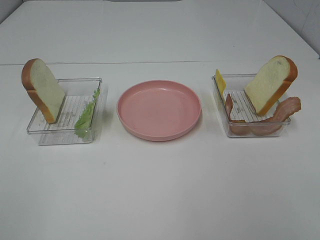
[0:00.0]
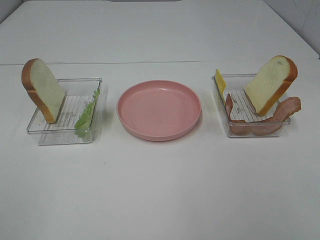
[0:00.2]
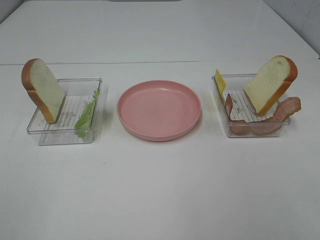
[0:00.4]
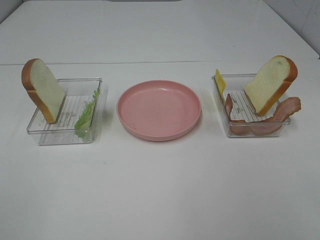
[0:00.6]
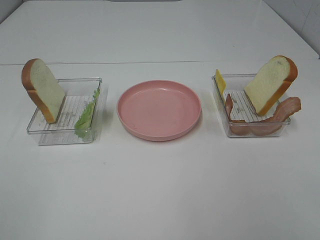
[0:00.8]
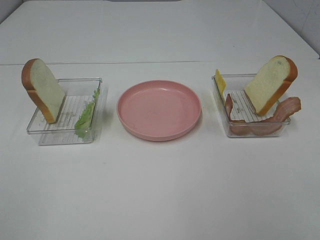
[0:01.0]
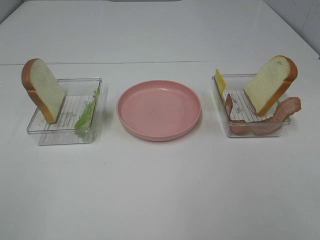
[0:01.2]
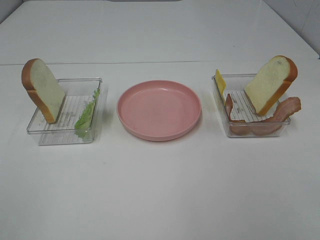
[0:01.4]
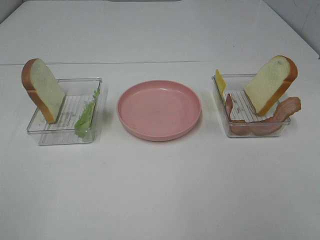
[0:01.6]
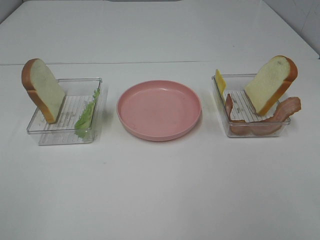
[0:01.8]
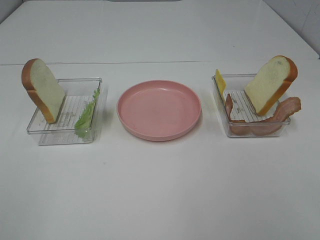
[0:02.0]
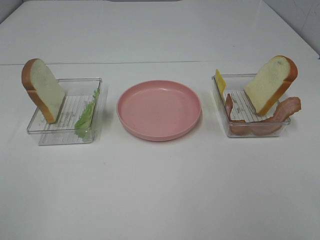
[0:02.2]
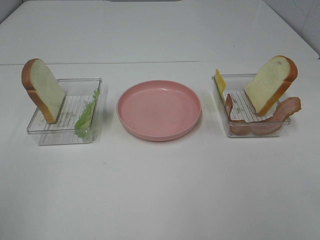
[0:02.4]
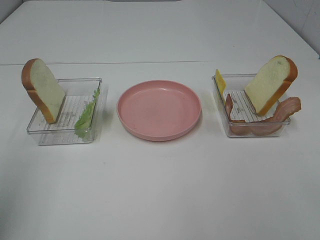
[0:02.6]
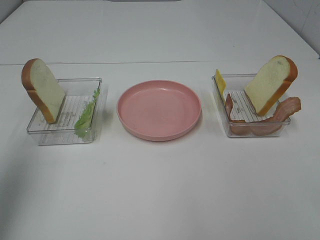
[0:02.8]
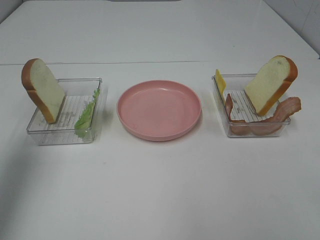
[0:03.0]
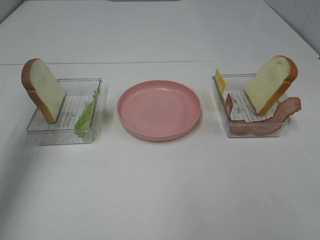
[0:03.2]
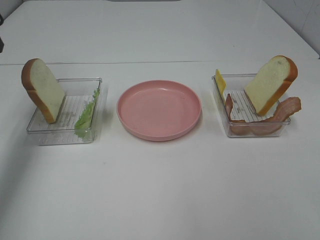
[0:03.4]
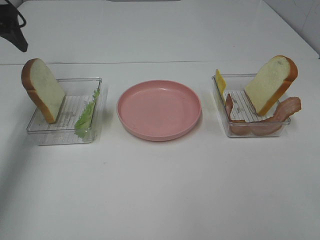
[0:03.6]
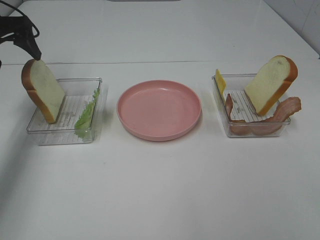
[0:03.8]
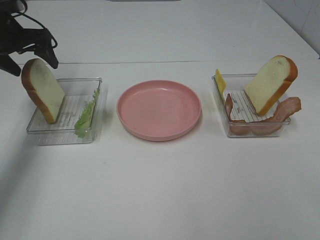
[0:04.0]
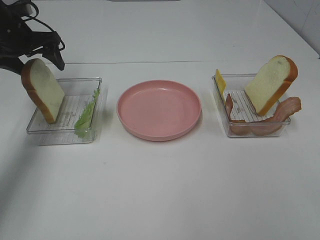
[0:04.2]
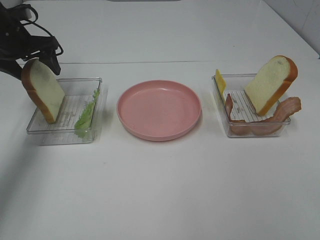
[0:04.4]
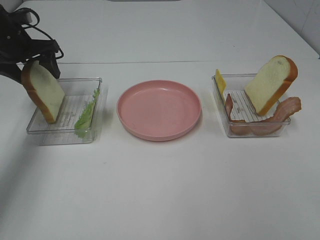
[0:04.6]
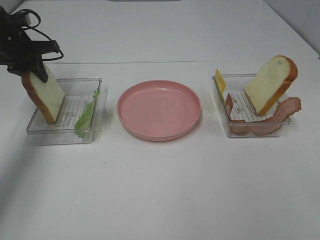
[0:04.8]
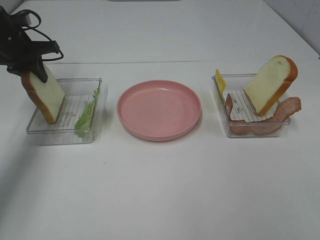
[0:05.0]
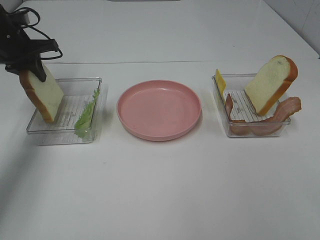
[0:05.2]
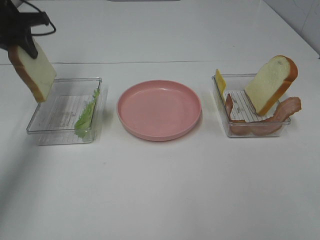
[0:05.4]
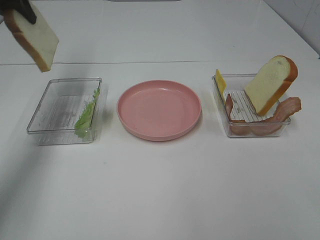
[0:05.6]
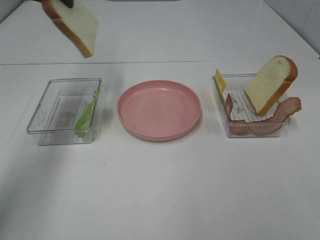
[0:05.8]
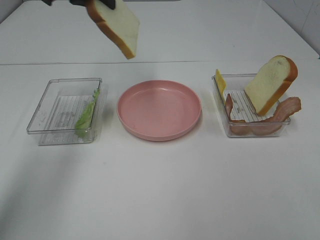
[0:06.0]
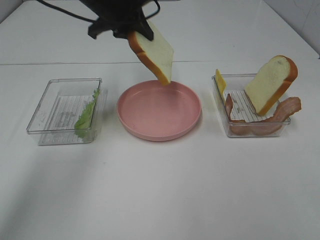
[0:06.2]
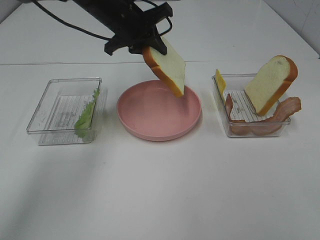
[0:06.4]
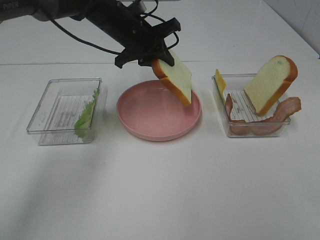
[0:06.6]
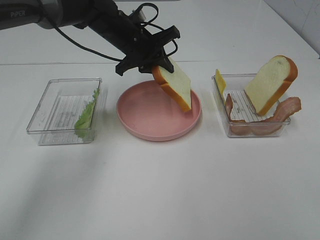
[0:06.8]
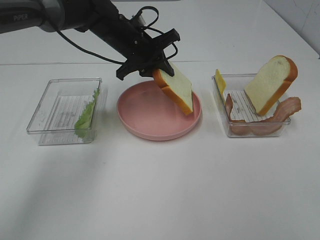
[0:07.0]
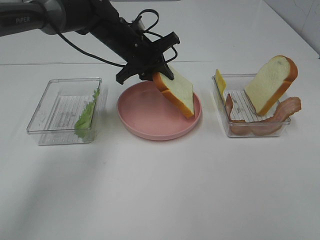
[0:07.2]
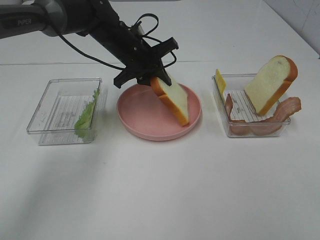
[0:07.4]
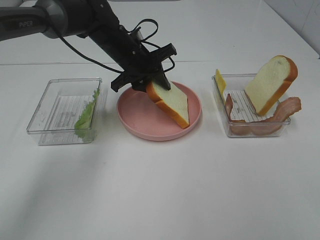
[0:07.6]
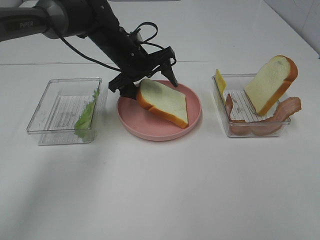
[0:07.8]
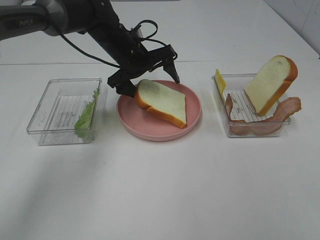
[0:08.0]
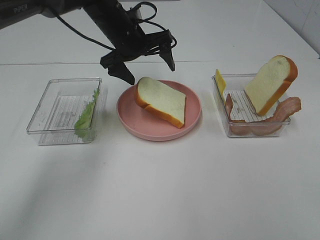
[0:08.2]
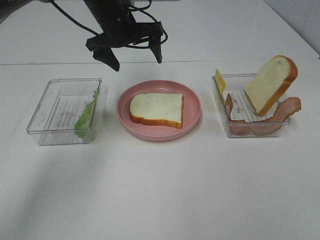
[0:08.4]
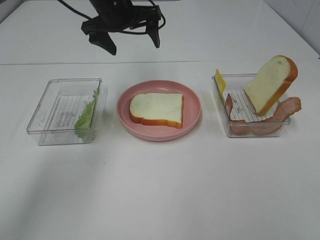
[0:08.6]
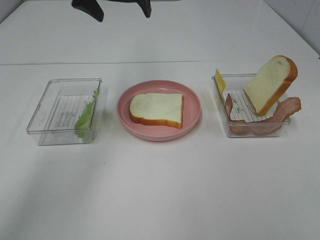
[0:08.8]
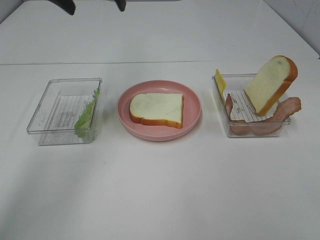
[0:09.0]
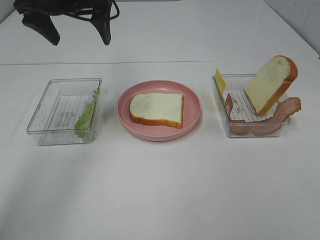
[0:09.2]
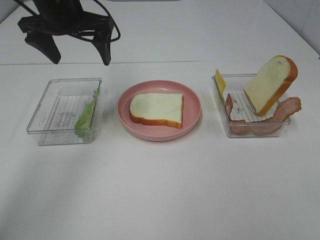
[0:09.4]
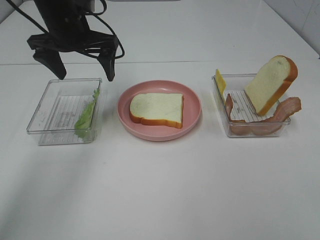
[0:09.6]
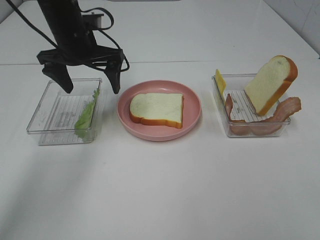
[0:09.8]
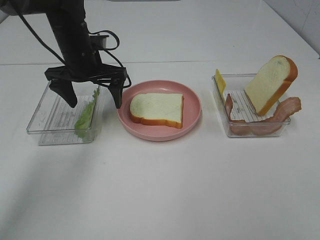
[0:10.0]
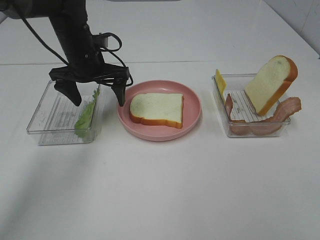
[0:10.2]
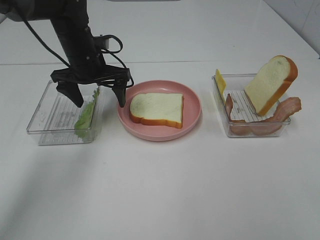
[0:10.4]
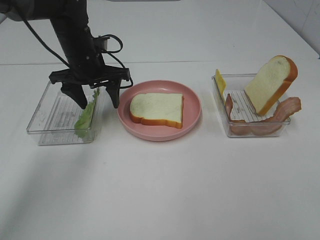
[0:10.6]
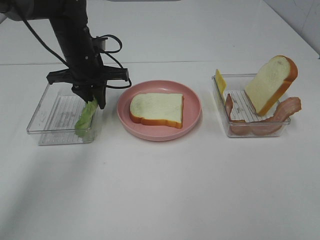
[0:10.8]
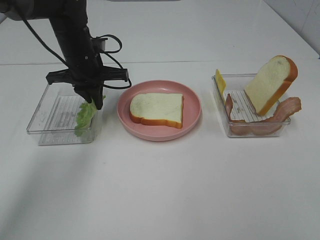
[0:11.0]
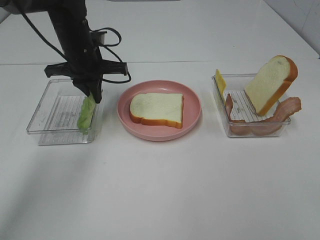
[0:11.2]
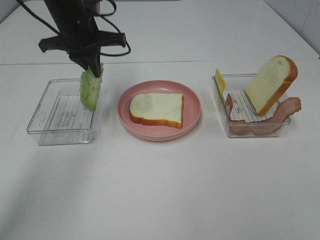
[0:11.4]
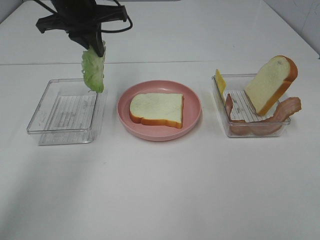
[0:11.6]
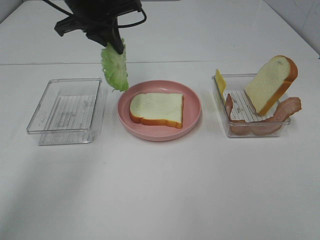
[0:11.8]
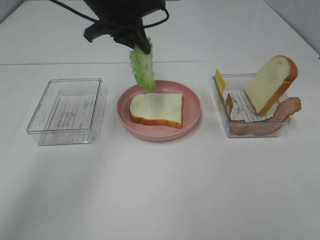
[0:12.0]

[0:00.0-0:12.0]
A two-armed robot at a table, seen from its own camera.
Task of the whole recording: Make sandwiches.
Step, 0:00.0 to 0:05.0: Left hand:grab the bread slice.
Step, 0:05.2 to 0:08.2: Left hand:place the bread slice on the plate.
Step, 0:08.4 to 0:11.0: Left hand:grab the lettuce slice.
0:00.0 to 0:01.6: Both grippers stay put.
0:01.6 to 0:03.0: The left gripper moves forward, some 25 cm.
0:03.0 to 0:04.4: The left gripper moves forward and downward, about 25 cm.
0:04.4 to 0:06.0: The left gripper goes about 20 cm to the right and upward, and closes.
0:06.0 to 0:07.6: The left gripper moves downward and to the right, some 20 cm.
0:07.6 to 0:09.0: The left gripper heads upward and to the left, covering some 20 cm, and opens.
0:09.0 to 0:10.4: The left gripper goes approximately 15 cm downward.
0:10.4 to 0:12.0: The left gripper shifts approximately 10 cm upward and to the right, and closes.

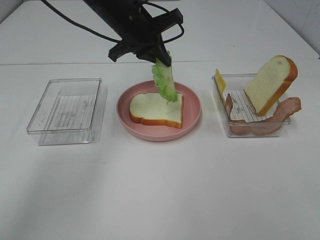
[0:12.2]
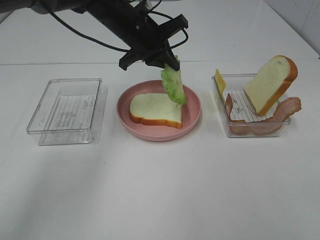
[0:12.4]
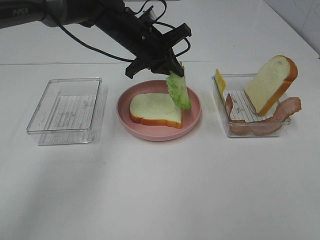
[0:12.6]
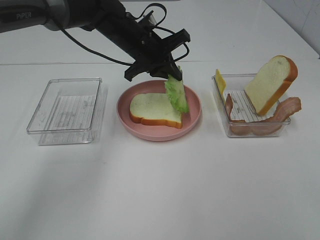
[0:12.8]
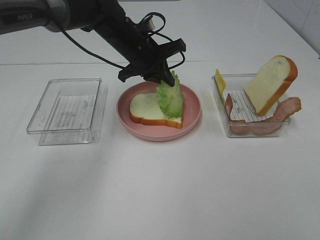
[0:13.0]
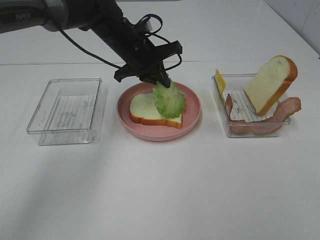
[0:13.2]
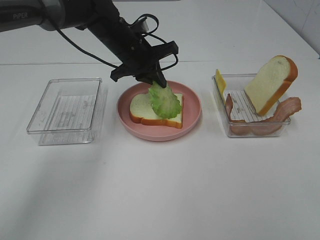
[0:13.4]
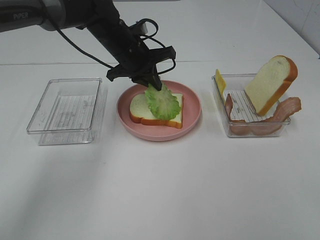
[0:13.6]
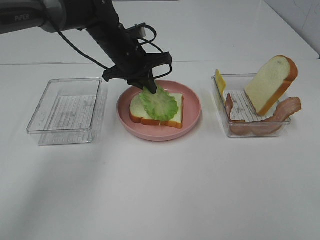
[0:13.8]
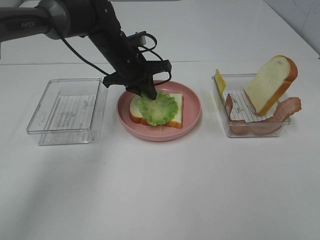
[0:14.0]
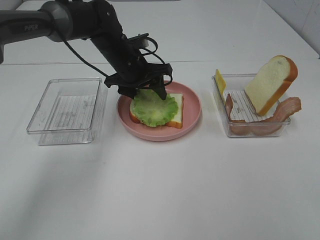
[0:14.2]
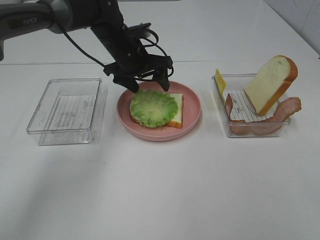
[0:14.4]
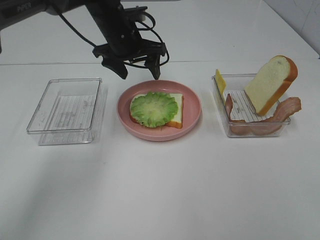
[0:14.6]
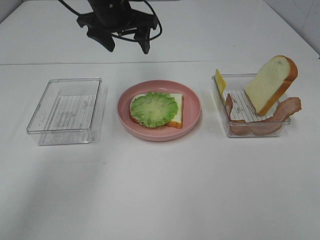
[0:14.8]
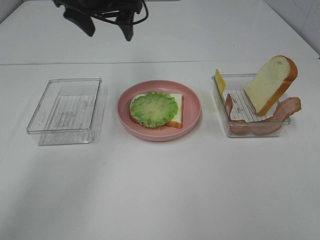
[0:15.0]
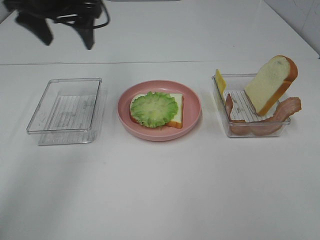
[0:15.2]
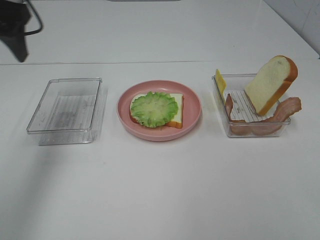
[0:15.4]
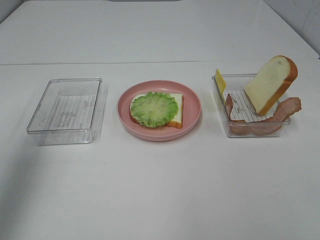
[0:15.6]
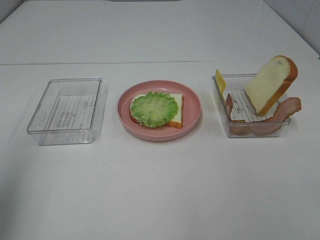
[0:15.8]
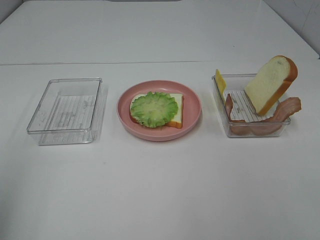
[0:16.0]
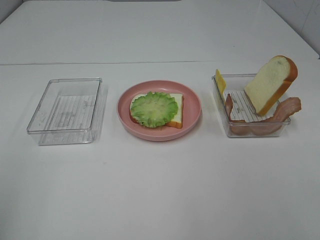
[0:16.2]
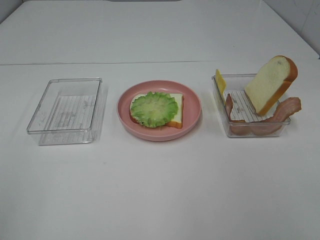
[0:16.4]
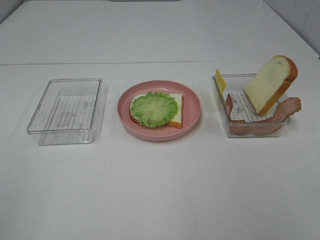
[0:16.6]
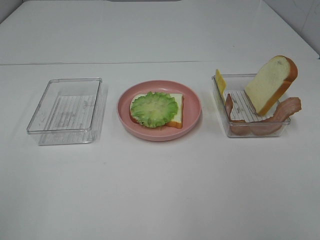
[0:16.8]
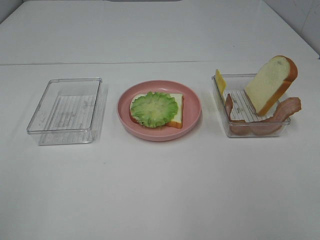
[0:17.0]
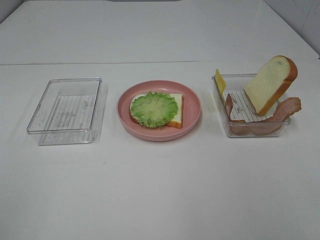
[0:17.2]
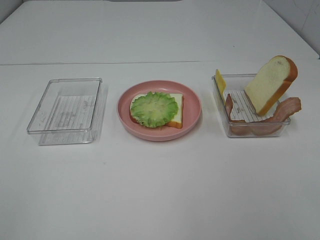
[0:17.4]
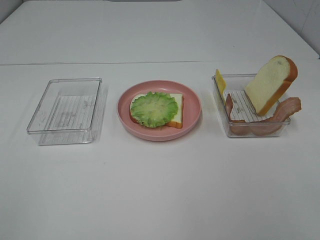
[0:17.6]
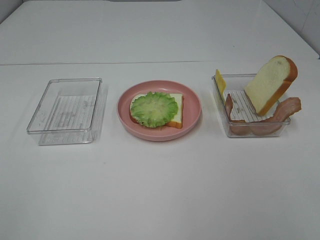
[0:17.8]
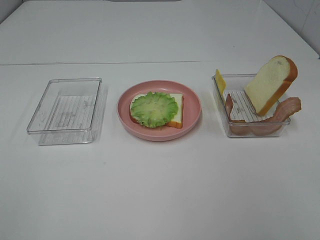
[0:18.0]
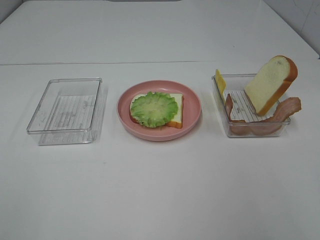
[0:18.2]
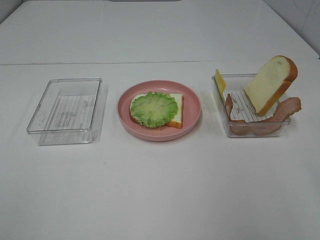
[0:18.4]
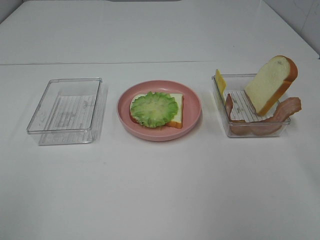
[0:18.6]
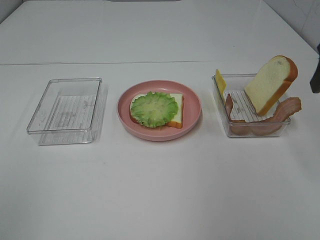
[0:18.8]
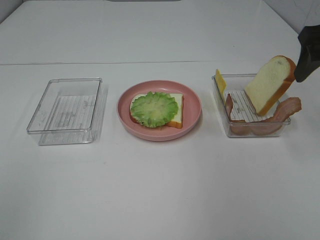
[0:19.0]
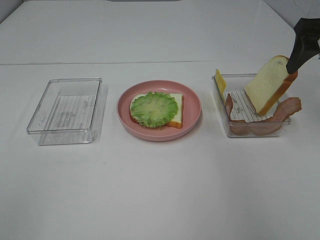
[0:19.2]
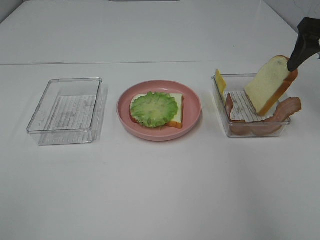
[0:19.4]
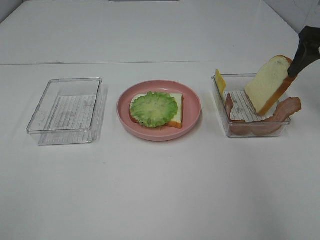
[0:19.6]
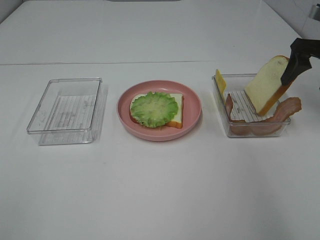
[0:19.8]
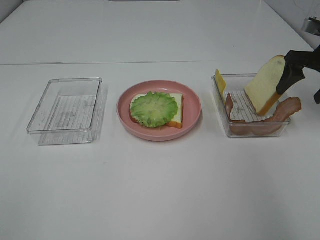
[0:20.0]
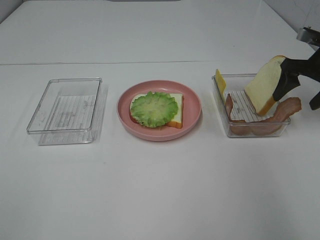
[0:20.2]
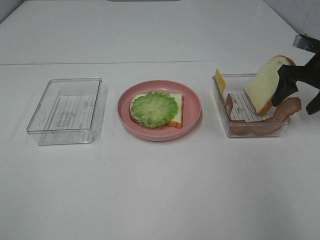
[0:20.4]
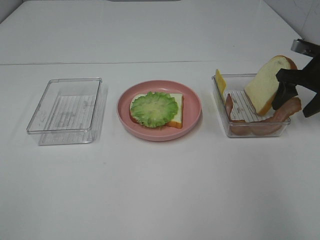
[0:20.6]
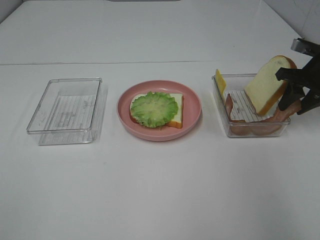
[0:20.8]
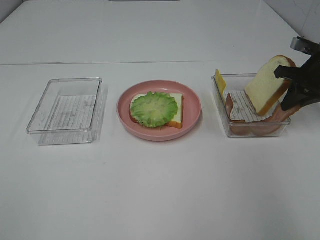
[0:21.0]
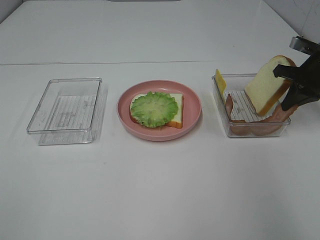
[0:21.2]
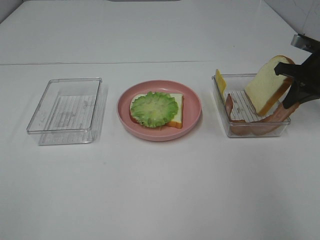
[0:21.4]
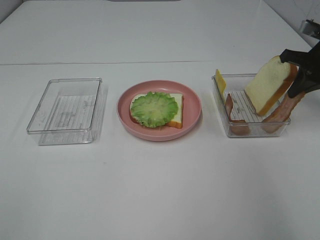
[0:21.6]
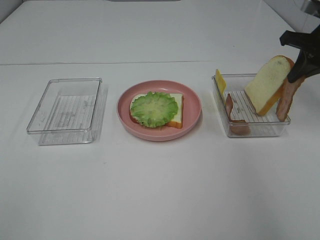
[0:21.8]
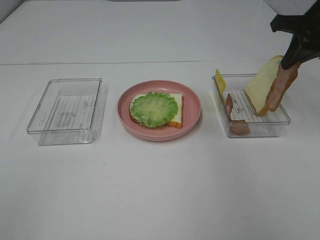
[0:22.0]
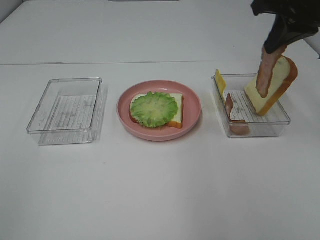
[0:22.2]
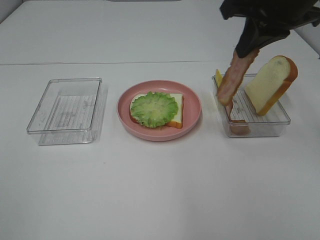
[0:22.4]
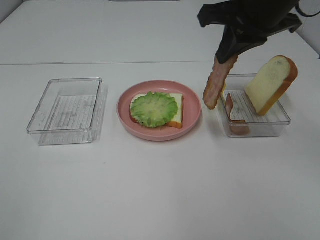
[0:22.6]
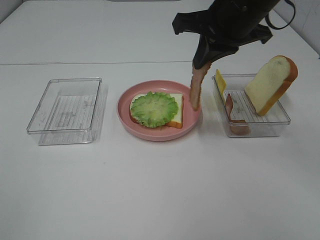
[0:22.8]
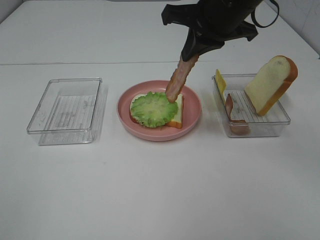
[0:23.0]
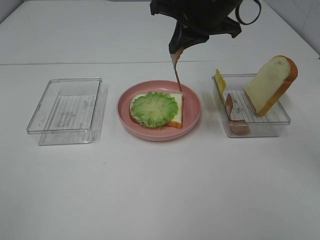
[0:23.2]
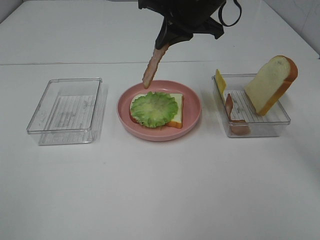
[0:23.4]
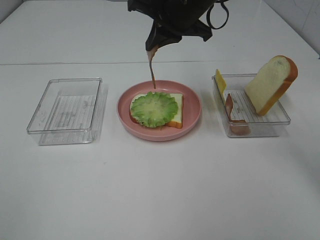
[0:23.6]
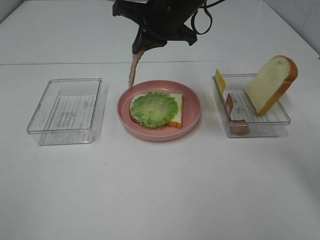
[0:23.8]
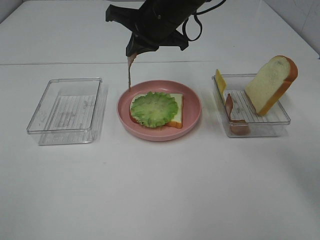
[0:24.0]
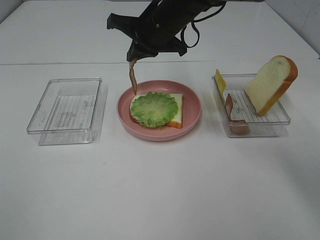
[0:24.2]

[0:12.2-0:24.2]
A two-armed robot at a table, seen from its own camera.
Task of the whole recording: Make sandwiches.
Step, 0:12.2 to 0:14.4: Left hand:place the lettuce slice on the bread slice.
Step, 0:14.6 to 0:21.2: Right hand:grab the bacon.
0:12.2 to 0:13.8: The left gripper is displaced downward by approximately 5 cm.
0:13.8 to 0:15.2: The left gripper heads upward and to the left, covering some 20 cm, and opens.
0:15.2 to 0:16.6: The left gripper moves backward, approximately 40 cm.
0:18.2 to 0:19.8: The right gripper heads forward, covering approximately 30 cm.
0:19.8 to 0:21.2: The right gripper is displaced downward by roughly 5 cm, and closes up.
0:21.2 to 0:22.6: The right gripper goes about 25 cm to the left and upward.
0:22.6 to 0:24.2: The right gripper heads to the left, forward and downward, covering some 20 cm.
